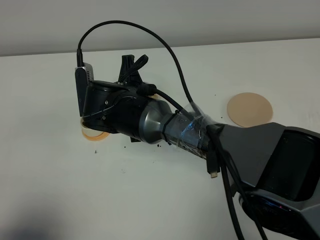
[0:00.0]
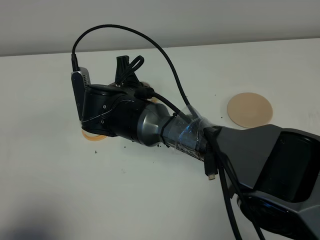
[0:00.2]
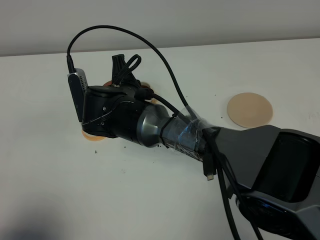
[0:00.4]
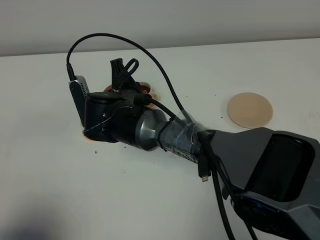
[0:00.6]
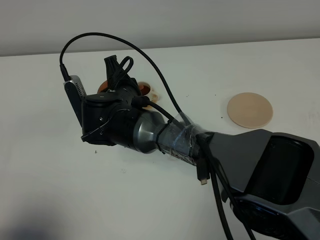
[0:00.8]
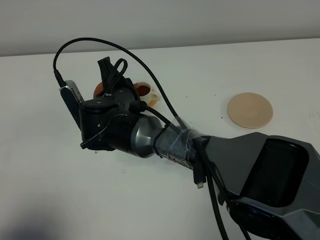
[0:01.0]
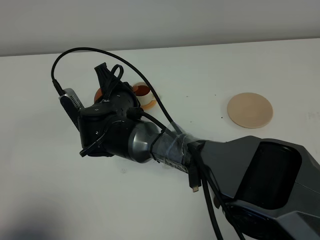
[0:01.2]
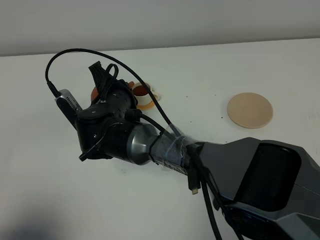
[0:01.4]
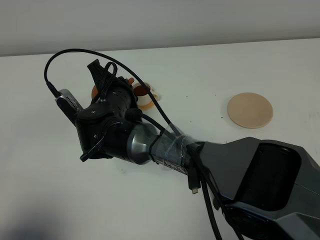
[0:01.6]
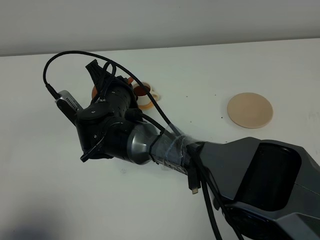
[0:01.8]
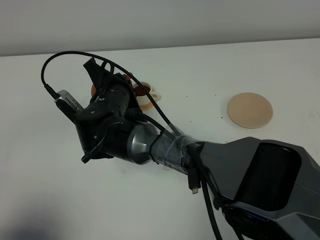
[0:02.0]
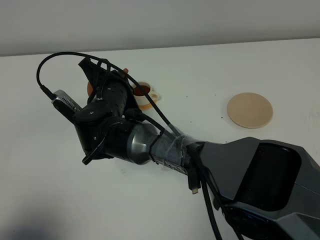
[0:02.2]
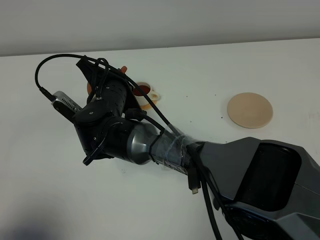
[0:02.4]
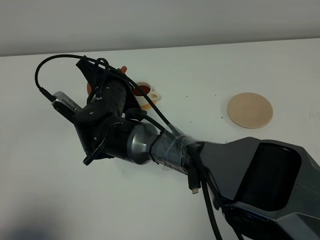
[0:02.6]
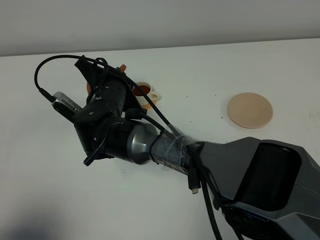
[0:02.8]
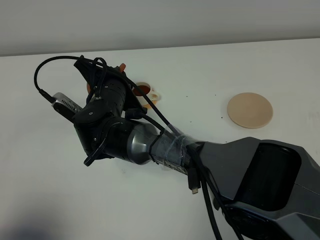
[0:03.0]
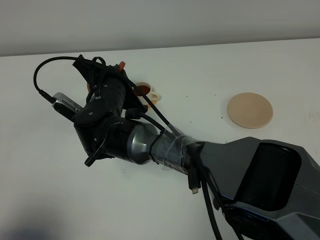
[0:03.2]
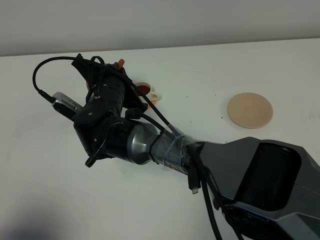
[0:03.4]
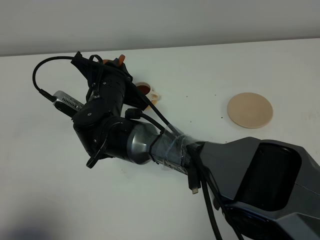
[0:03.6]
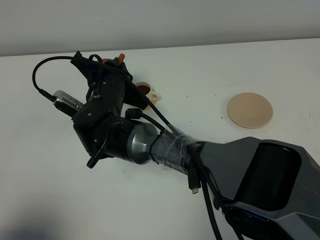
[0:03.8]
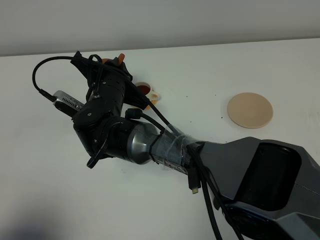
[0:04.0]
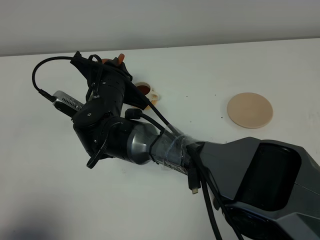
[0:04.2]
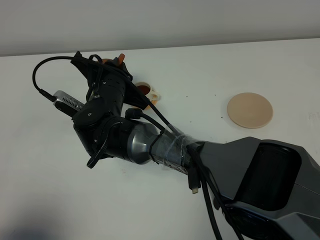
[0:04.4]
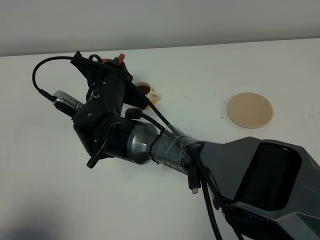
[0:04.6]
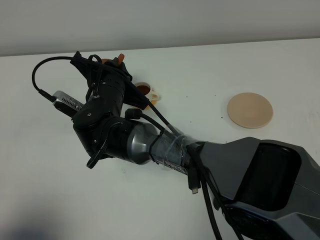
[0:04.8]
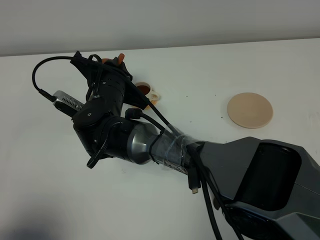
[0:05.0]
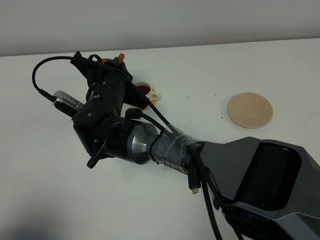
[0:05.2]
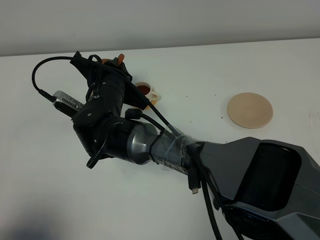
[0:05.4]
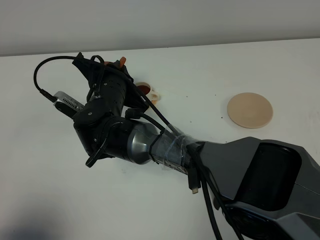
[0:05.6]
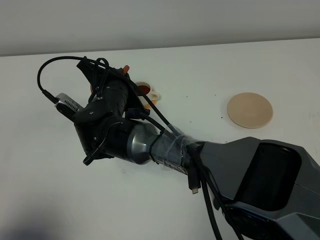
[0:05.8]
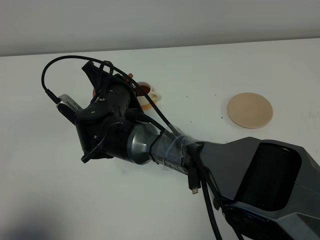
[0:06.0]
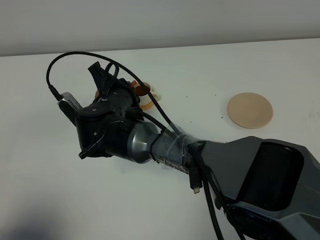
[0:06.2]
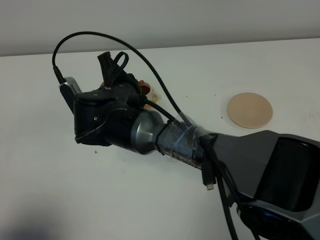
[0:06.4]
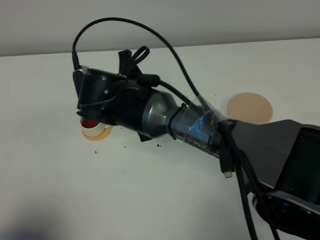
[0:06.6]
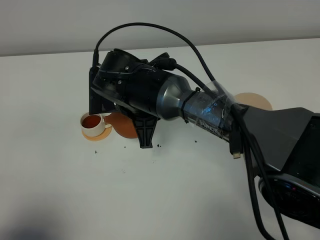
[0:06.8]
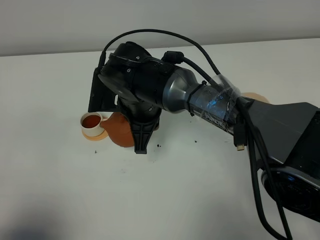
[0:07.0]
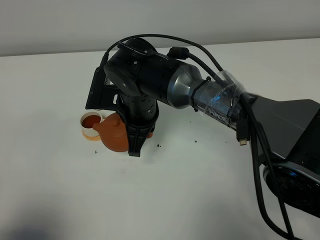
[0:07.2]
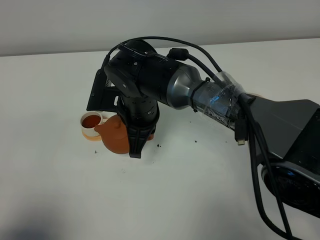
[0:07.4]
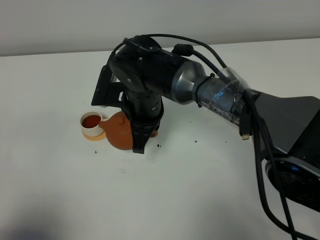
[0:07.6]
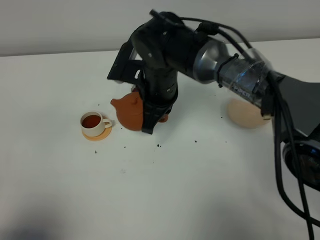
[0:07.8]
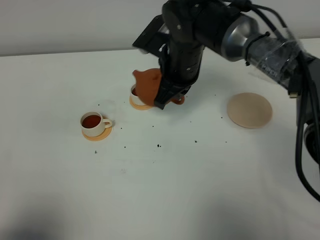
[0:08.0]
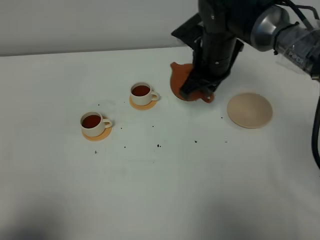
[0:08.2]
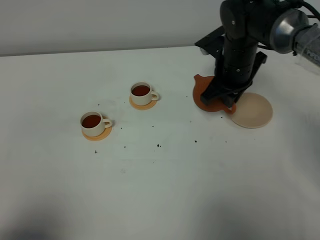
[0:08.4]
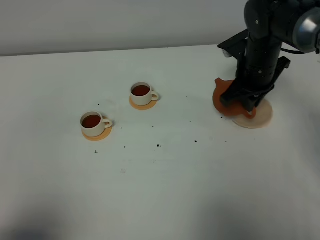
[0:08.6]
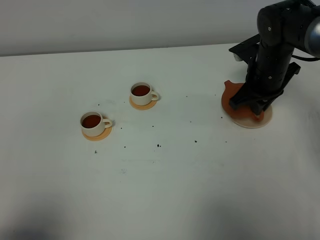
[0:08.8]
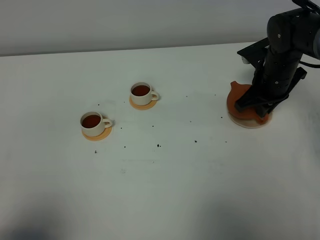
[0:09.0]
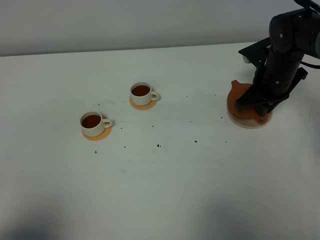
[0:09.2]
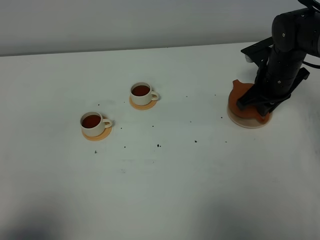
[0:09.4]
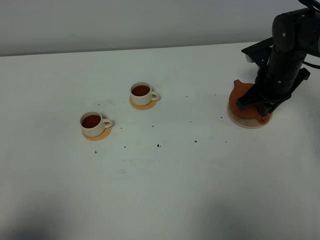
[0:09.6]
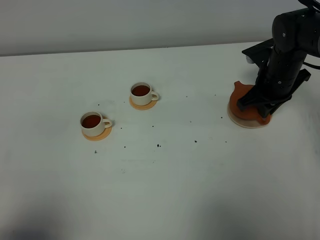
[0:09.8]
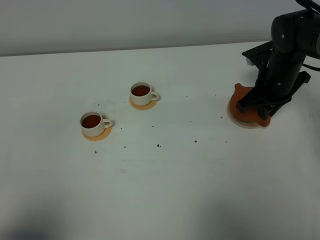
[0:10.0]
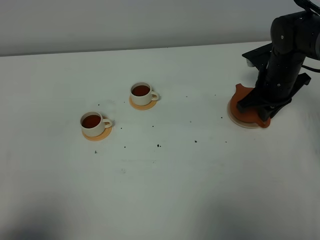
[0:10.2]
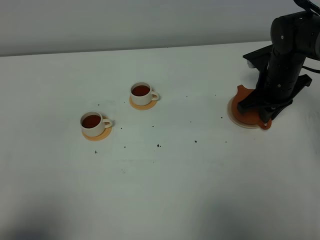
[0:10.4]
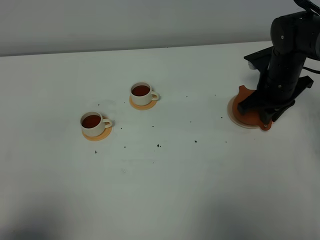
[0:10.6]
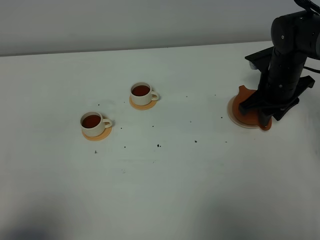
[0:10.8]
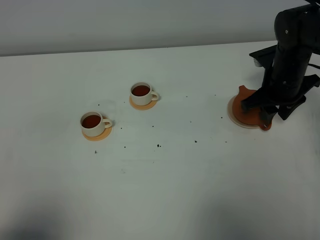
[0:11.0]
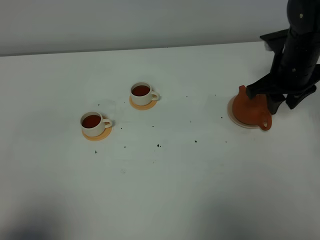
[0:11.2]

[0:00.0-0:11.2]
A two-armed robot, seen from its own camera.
Task of the whole recording: grasp the brown teapot and pour the tea into the two white teacups one by one, put the brown teapot back in its original place.
Step, 0.0 to 6.0 s: Pour tea into the teacup with the right gripper.
1.6 to 3.2 s: The grippers move only a little.
3.2 to 4.8 s: The two grippers keep their place.
6.4 to 8.0 s: The right gripper goes approximately 15 cm to the right and forward.
8.0 to 9.6 s: The right gripper shifts some 15 cm to the right.
9.6 to 11.2 s: The right gripper goes roughly 5 cm upward, and opens up.

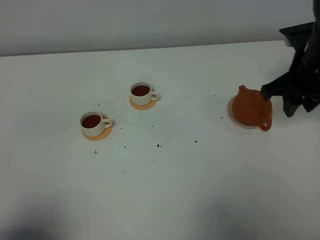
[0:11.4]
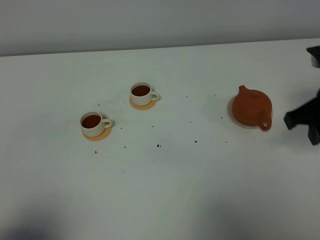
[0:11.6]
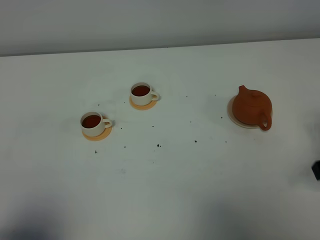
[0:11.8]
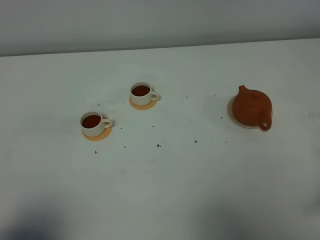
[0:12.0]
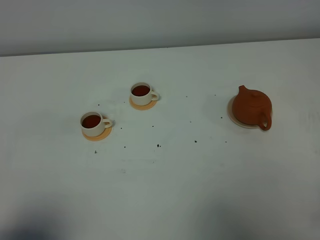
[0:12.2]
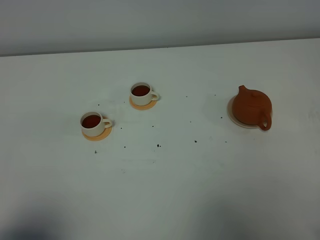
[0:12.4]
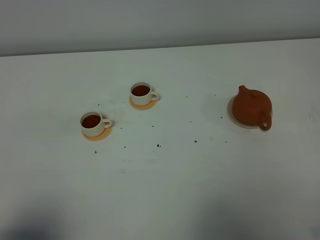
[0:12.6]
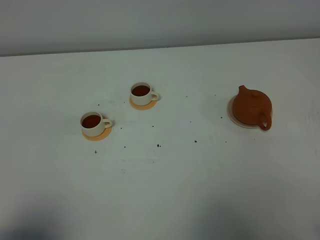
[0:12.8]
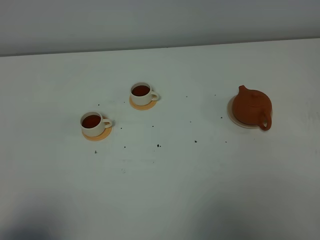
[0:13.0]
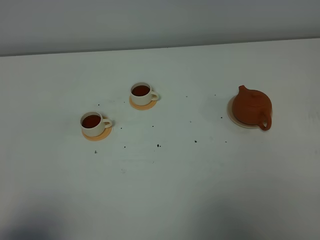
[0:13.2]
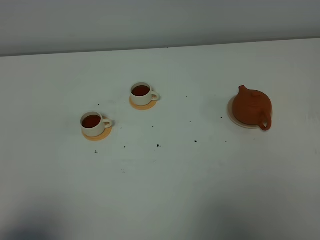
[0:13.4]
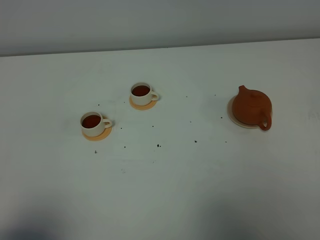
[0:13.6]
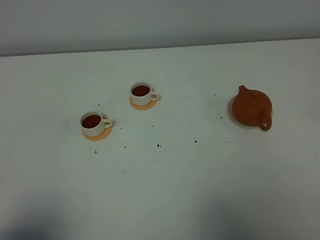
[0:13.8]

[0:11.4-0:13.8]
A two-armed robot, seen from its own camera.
Task of the whole recording: grasp the brown teapot and pour the tea into the two white teacups one by one, put the brown teapot back in its original place.
11.4 to 12.6 s: The right gripper is displaced backward by some 25 cm, and closes.

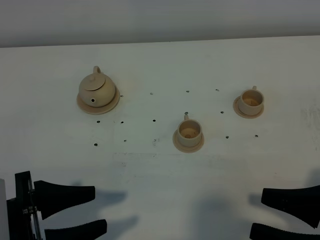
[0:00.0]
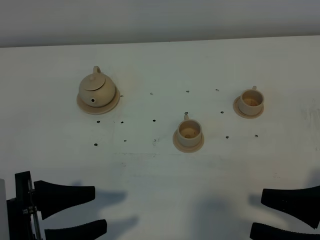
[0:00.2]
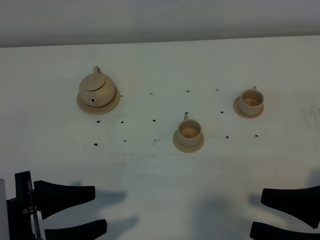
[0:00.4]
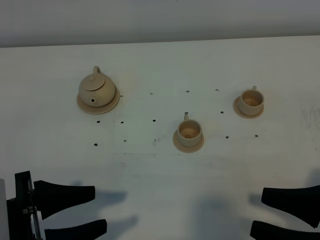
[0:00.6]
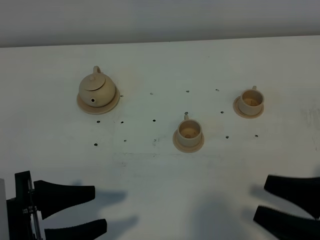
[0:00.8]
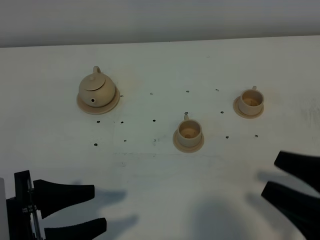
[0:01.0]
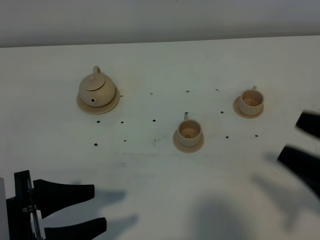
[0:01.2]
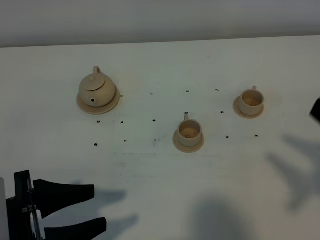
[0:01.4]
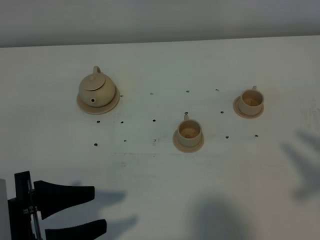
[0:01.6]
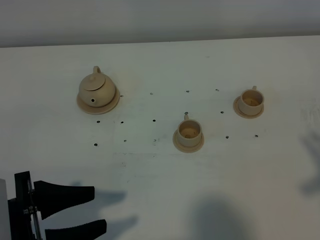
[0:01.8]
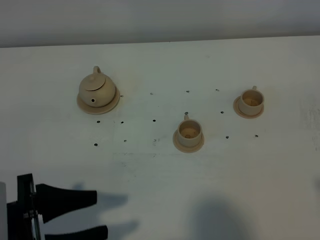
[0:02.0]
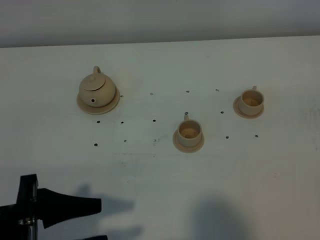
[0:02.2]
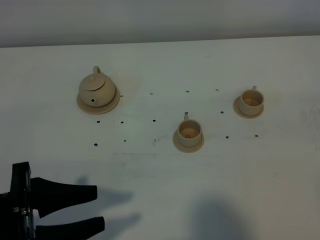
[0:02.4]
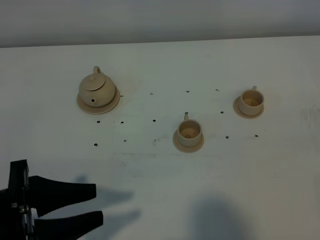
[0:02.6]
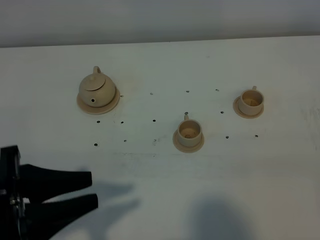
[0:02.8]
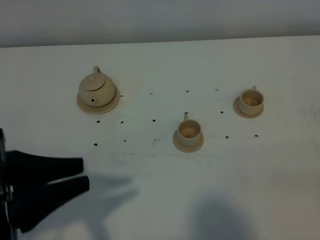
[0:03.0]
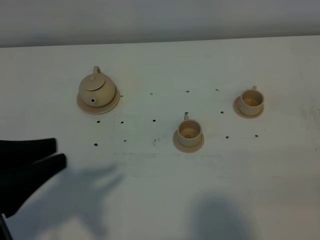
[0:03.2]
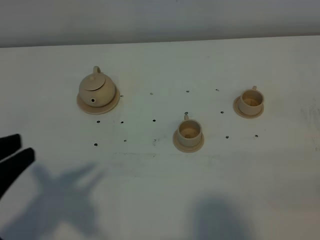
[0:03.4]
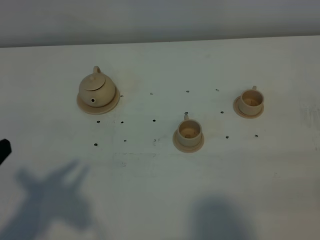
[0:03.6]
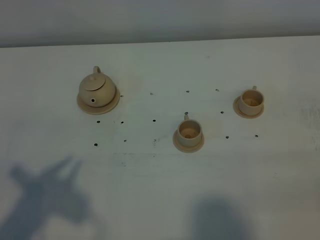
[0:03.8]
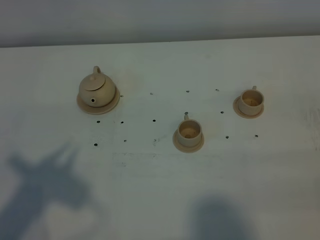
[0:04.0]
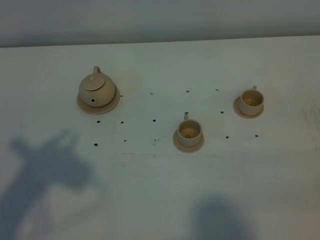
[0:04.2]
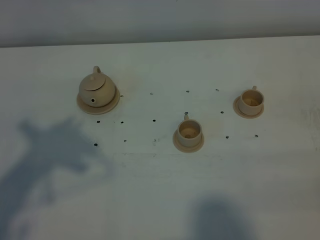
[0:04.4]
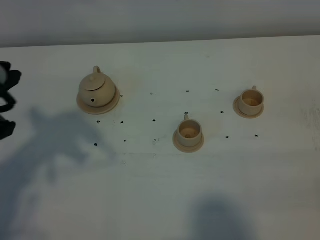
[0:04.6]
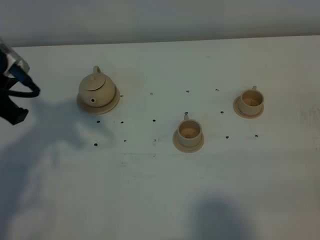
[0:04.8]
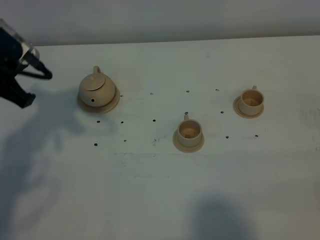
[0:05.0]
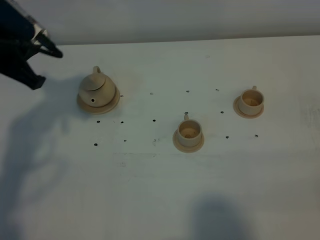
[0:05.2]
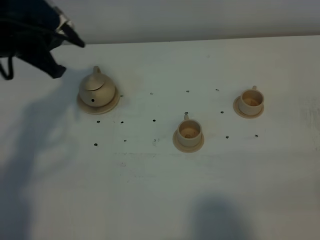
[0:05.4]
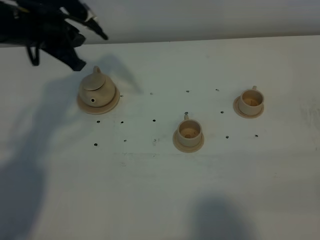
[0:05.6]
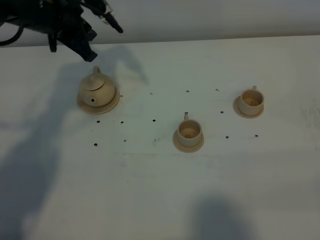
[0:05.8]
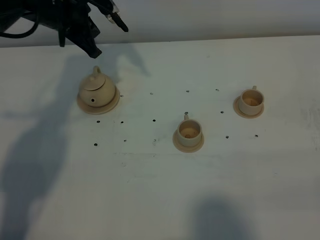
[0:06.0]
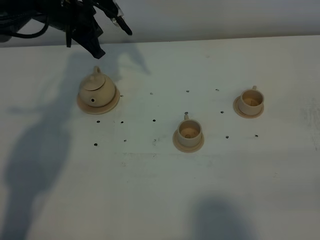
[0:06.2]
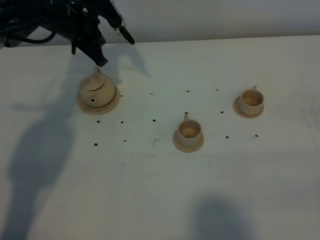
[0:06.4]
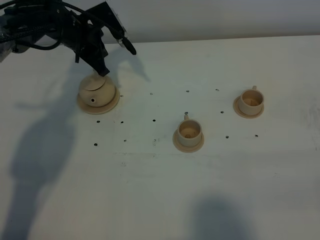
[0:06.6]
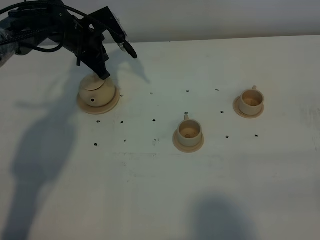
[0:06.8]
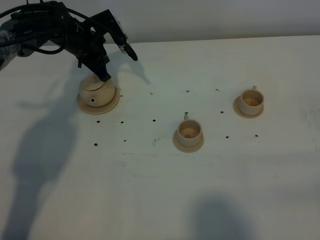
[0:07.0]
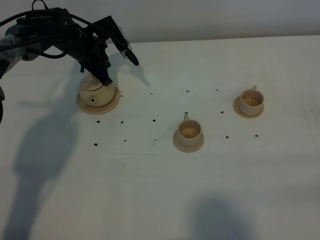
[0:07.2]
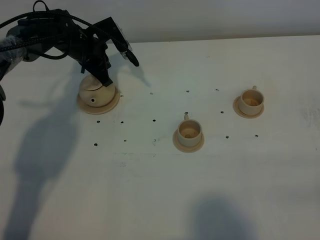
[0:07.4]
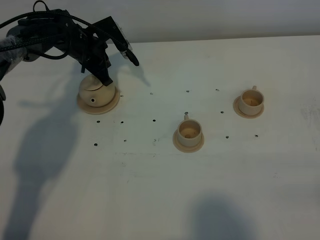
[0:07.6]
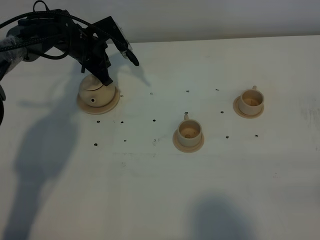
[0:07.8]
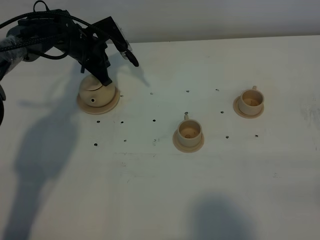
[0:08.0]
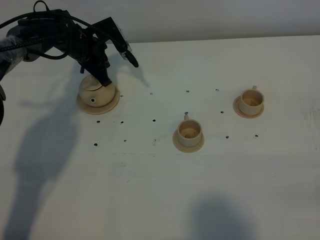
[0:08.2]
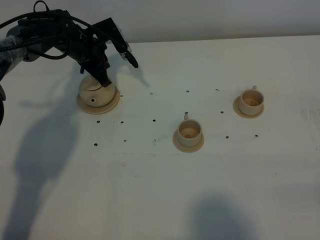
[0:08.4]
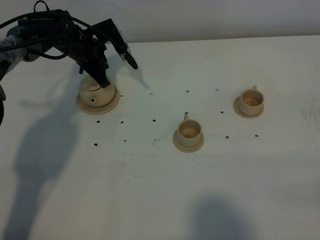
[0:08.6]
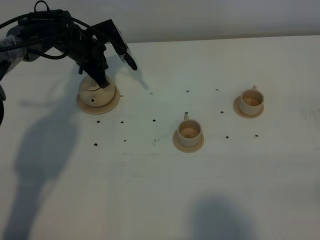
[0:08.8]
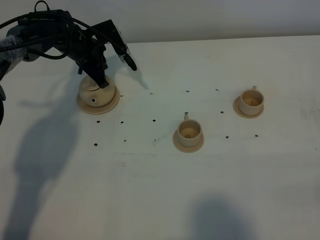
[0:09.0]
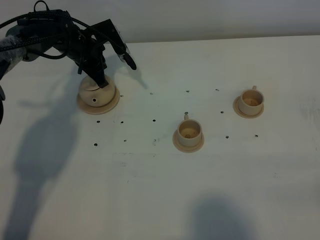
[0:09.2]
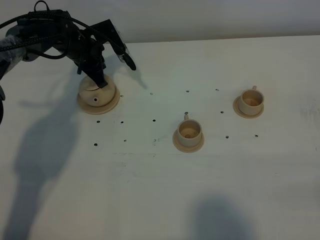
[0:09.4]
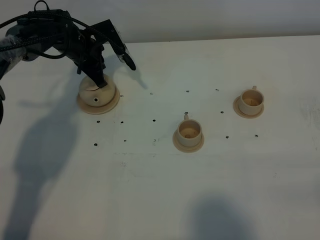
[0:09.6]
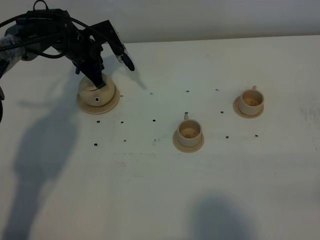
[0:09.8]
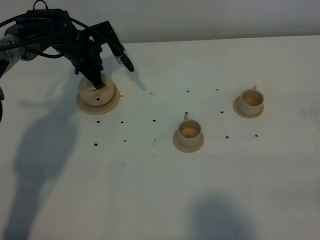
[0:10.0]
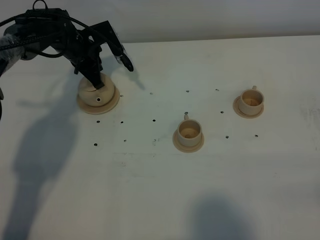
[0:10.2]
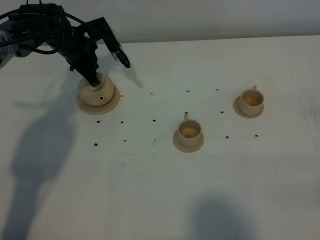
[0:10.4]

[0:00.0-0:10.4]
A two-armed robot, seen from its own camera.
Task of the whole recording: grasp the brown teapot and pour the tea into the two brown teacups one by one, put the brown teapot back in its original place.
0.0 to 1.4 s: The right gripper shifts roughly 15 cm upward.
1.4 to 3.0 s: The left gripper heads upward, covering roughly 10 cm, and closes up. The right gripper moves backward and downward, about 10 cm, and closes its fingers.
3.0 to 4.4 s: The left gripper goes about 10 cm upward and forward.
4.4 to 6.0 s: The left gripper heads forward, covering about 30 cm.
6.0 to 7.4 s: The left gripper moves downward, approximately 10 cm.
7.4 to 9.0 s: Neither gripper changes place.
9.0 to 10.4 s: The grippers stay close to where they were, moving slightly.
